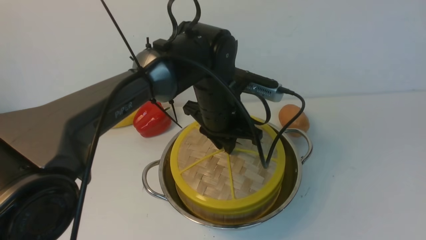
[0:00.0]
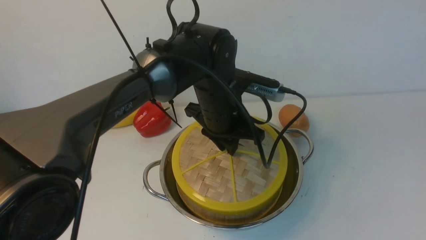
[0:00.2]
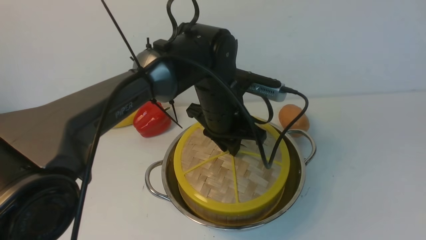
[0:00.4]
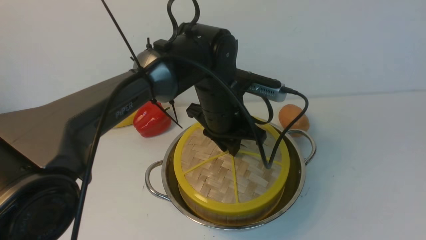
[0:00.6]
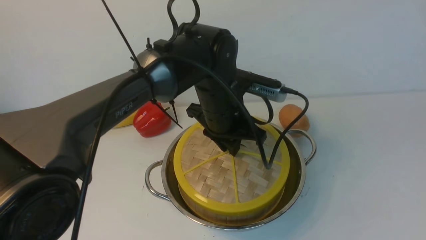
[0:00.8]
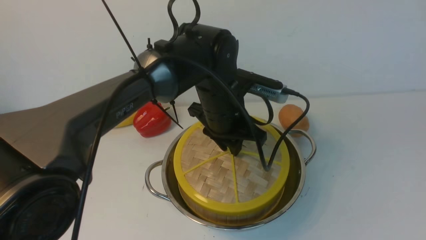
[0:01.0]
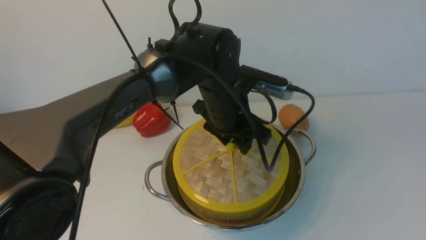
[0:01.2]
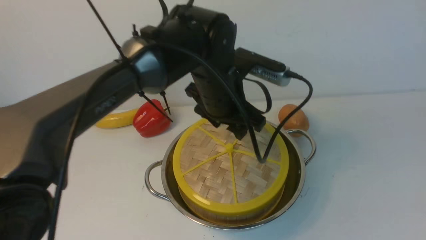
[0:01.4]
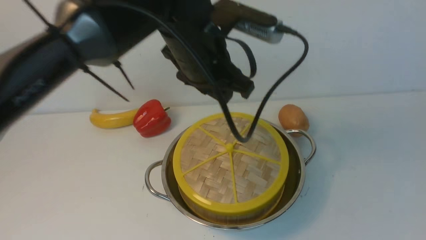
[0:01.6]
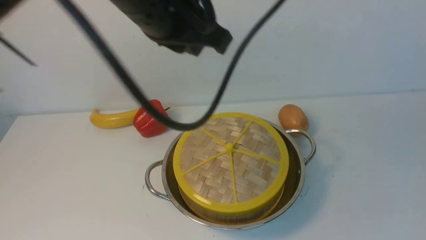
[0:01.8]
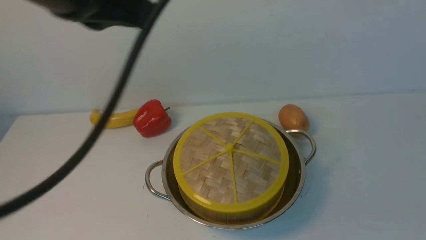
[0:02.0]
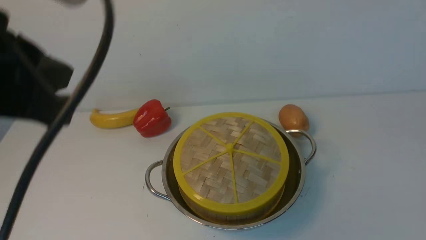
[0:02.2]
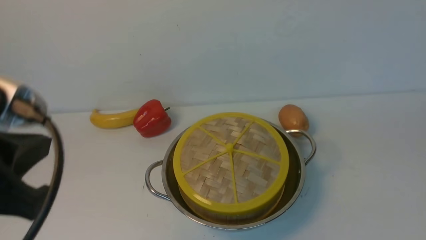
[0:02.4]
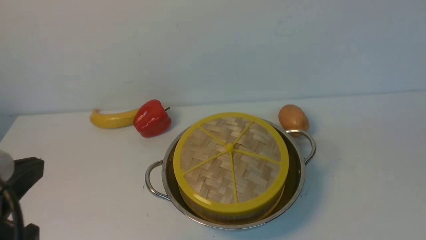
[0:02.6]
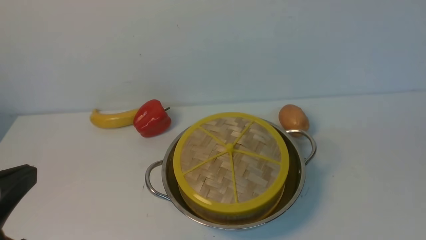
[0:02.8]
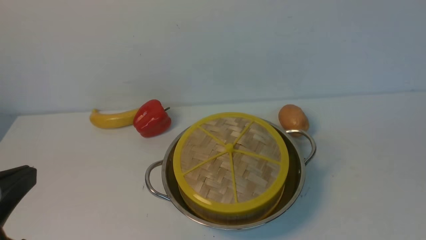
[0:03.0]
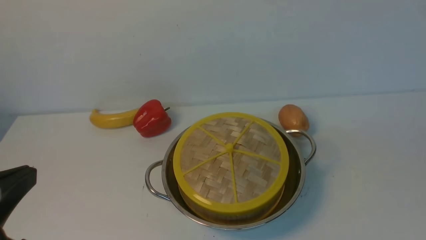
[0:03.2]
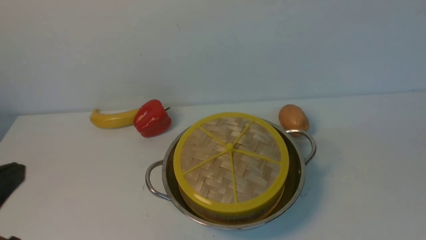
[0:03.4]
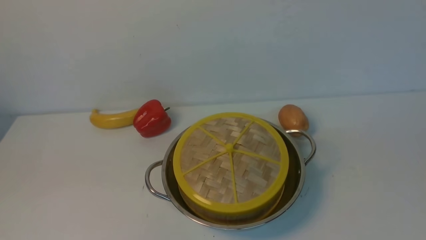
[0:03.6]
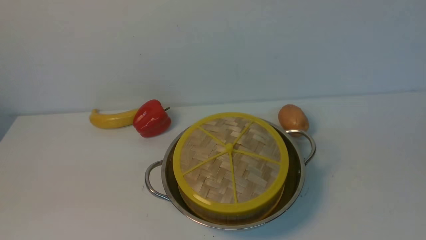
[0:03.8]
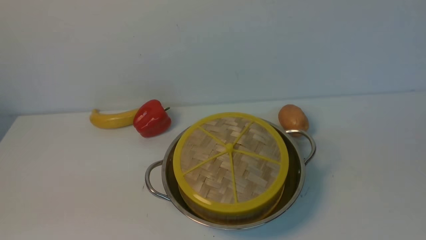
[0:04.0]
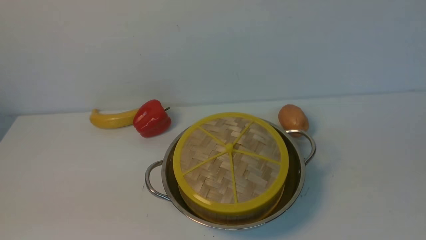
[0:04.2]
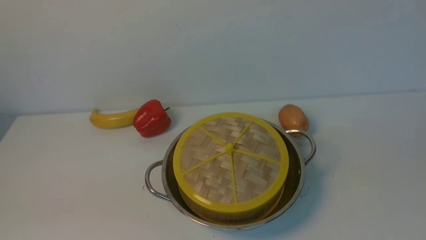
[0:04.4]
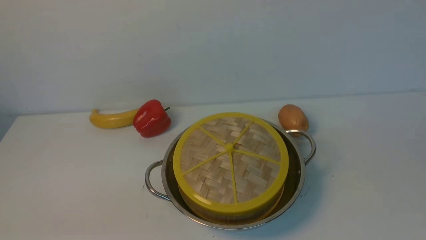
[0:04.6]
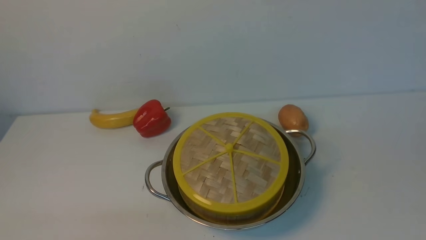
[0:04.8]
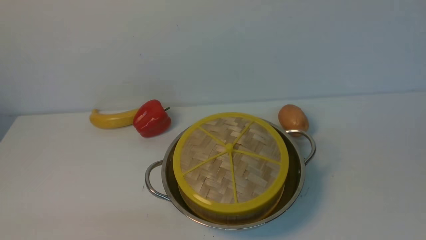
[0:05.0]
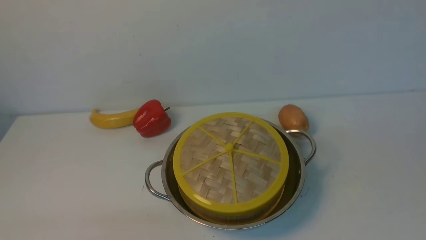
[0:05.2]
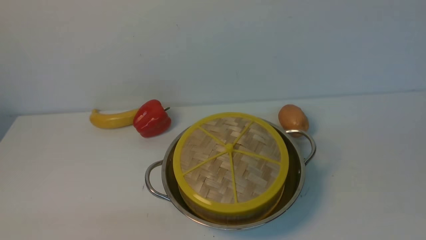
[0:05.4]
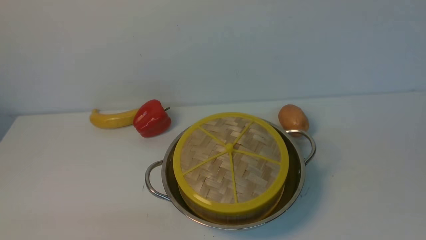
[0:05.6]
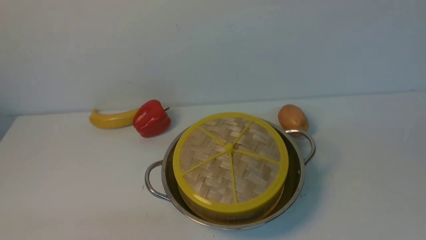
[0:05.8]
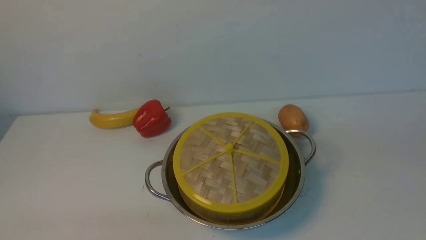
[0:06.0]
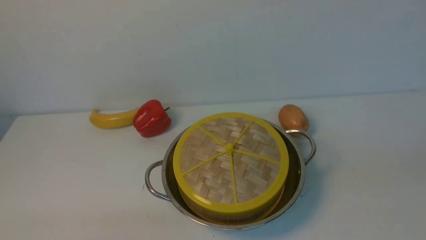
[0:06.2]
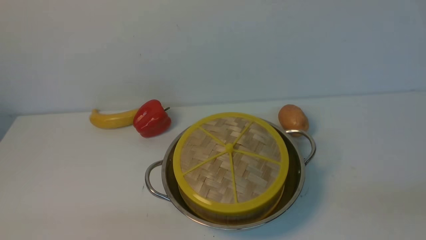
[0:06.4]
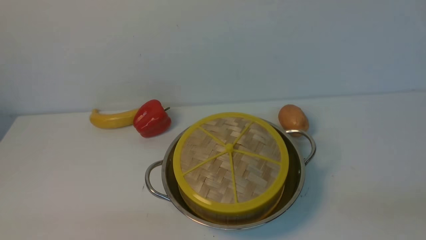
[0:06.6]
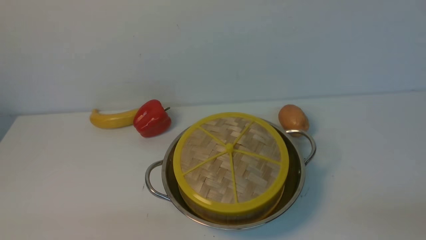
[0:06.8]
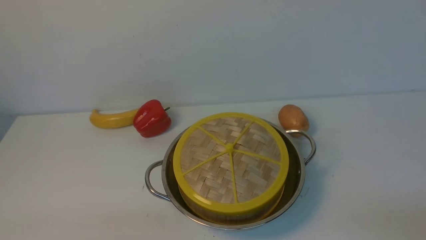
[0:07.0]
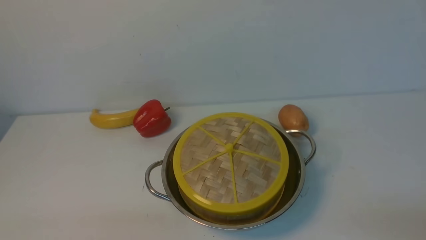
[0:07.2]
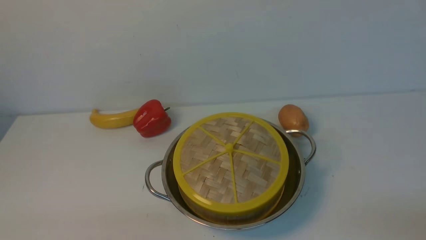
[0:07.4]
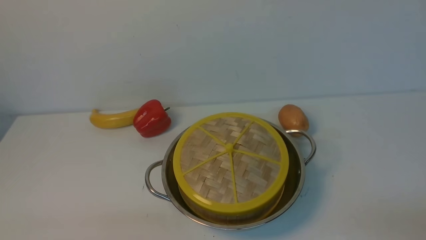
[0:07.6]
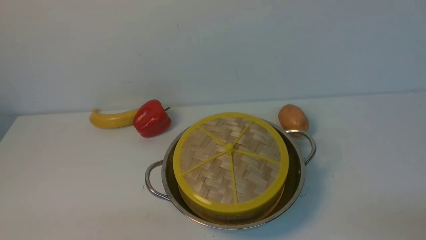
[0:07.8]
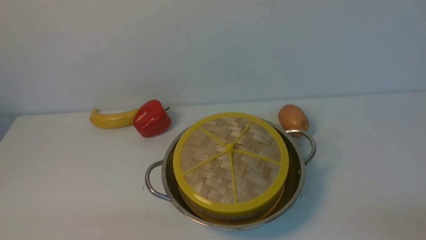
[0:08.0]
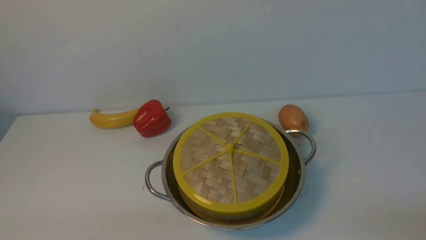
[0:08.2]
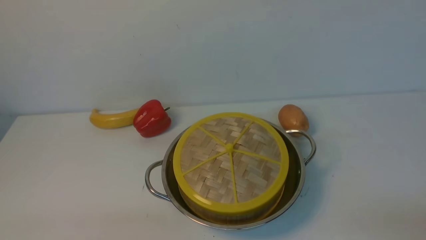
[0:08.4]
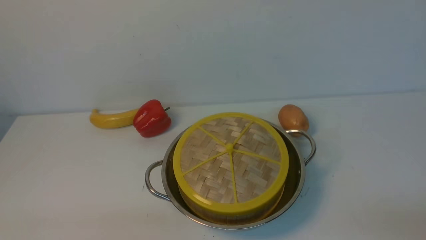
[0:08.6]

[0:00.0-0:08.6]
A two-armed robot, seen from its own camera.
Task of the whole recording: place the steamer in the pot on the white table, and put the lid on the steamer.
0:00.0 to 0:01.4: The left gripper is displaced upward by roughly 5 cm, and opens up.
0:01.4 to 0:02.8: The right gripper goes some 10 cm downward, while the left gripper moves backward and to the left, approximately 35 cm, and closes.
0:02.8 to 0:04.4: The left gripper heads downward and backward, covering about 10 cm.
0:07.2 to 0:08.6: Both grippers stay put.
